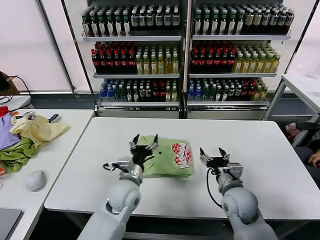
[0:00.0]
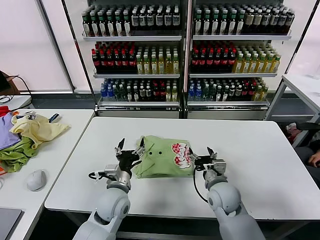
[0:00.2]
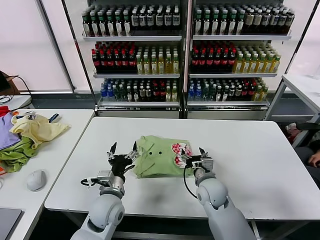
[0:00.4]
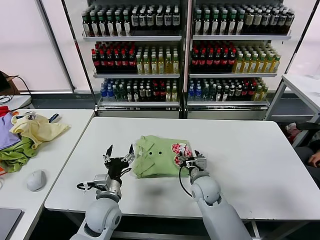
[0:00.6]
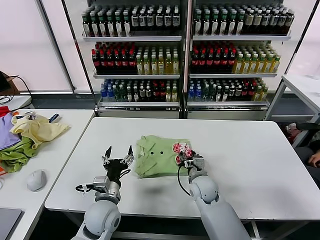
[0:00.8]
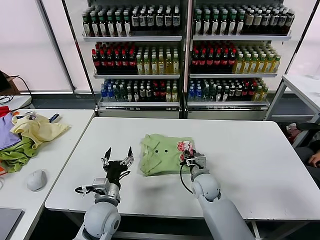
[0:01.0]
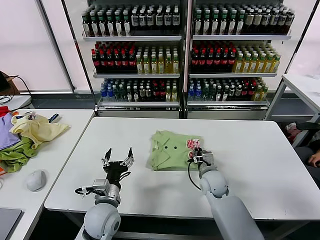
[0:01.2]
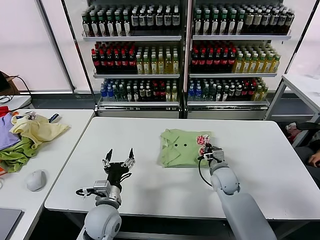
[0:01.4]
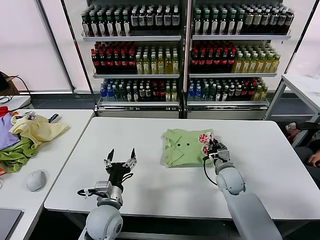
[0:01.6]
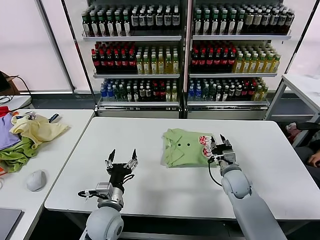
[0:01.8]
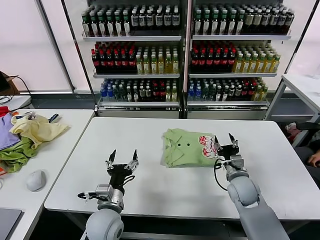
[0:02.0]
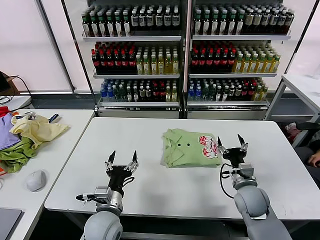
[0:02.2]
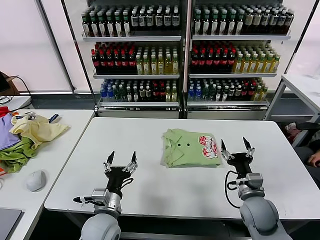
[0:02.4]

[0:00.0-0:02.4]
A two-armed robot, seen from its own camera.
Task of the whole recording: fold and organize the clothes.
Step, 0:00.0 to 0:01.6: Drag the clothes to the center of the table.
0:00.0 to 0:01.2: The right gripper travels forward, to the left and downward by about 15 cm, and closes up, while the left gripper heads backward and to the left, covering about 10 cm.
0:01.2 to 0:02.4: The right gripper shifts roughly 15 cm to the right and backward, and opens.
